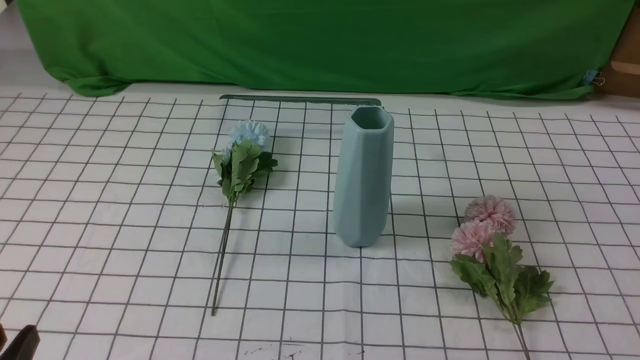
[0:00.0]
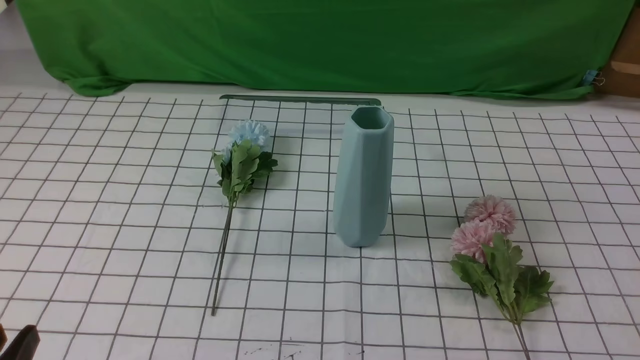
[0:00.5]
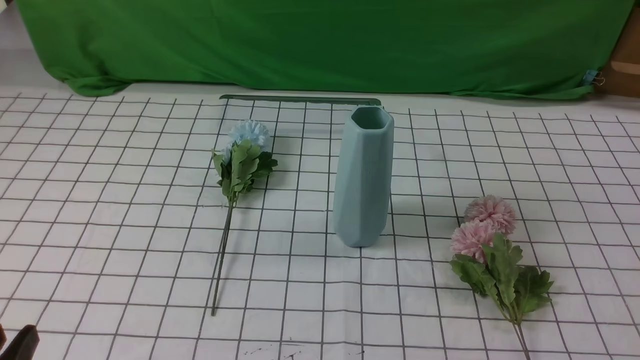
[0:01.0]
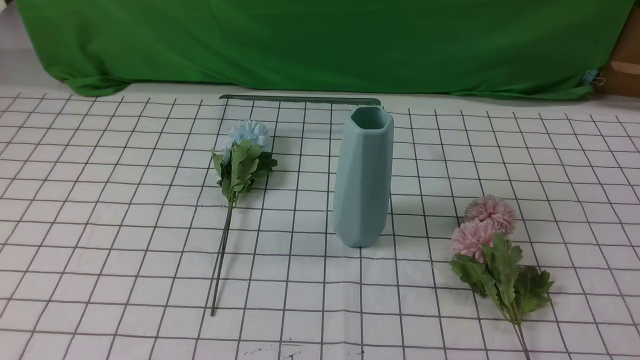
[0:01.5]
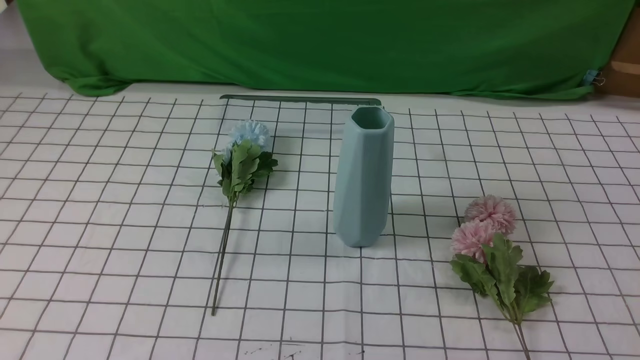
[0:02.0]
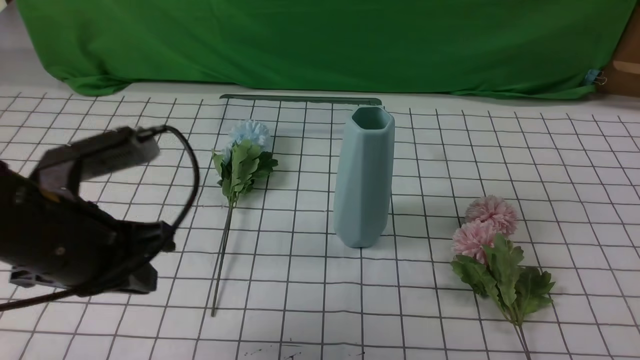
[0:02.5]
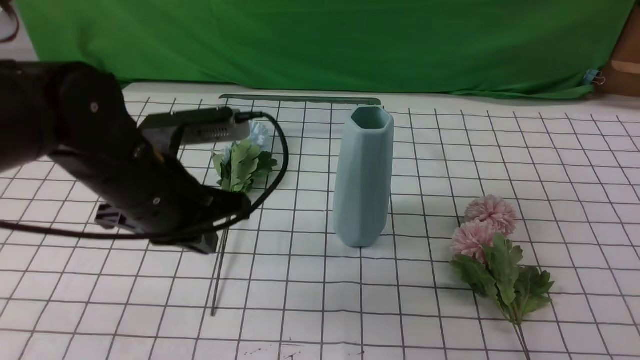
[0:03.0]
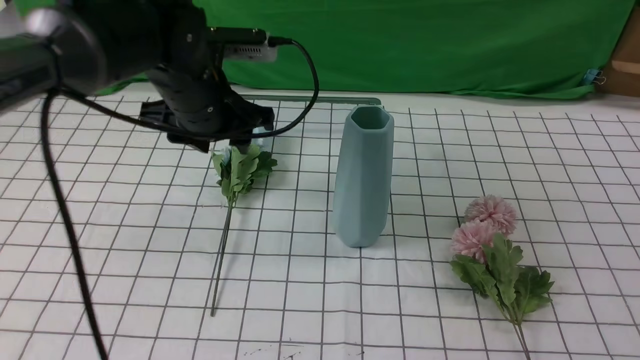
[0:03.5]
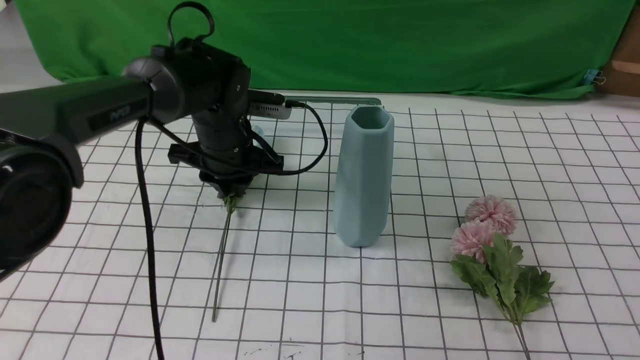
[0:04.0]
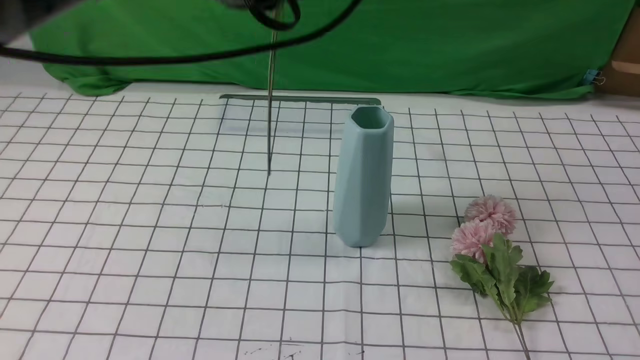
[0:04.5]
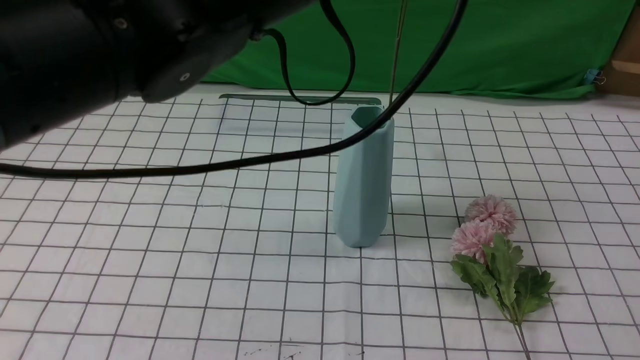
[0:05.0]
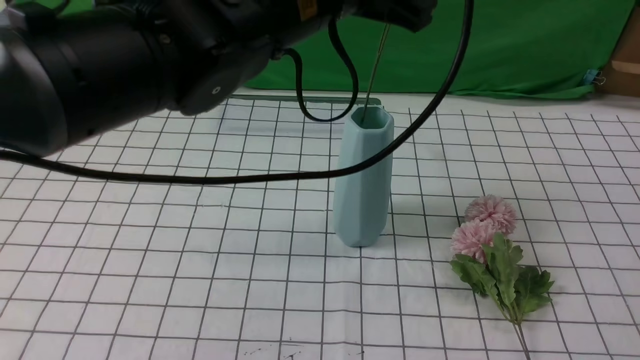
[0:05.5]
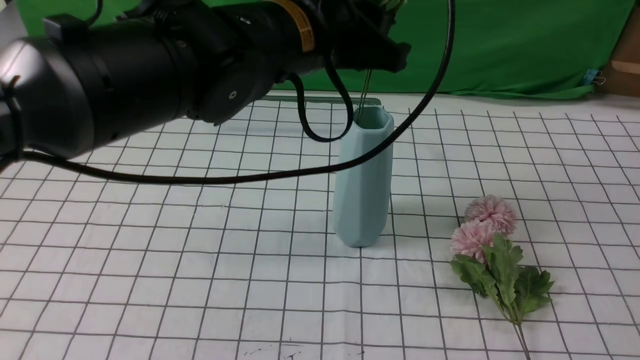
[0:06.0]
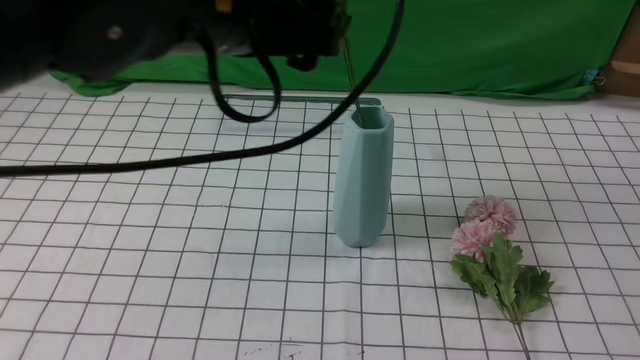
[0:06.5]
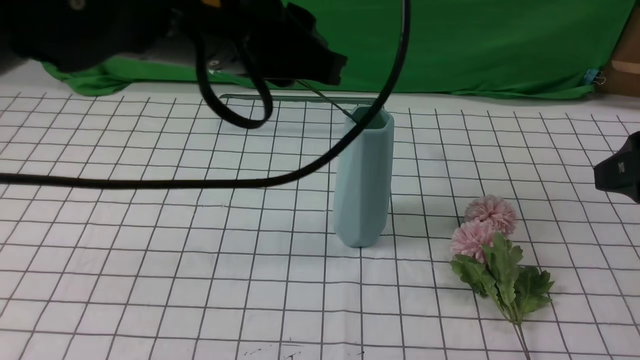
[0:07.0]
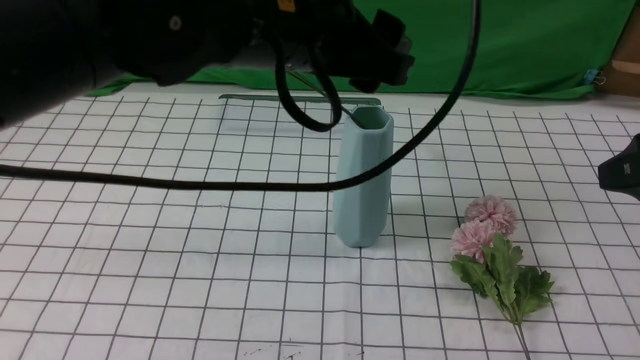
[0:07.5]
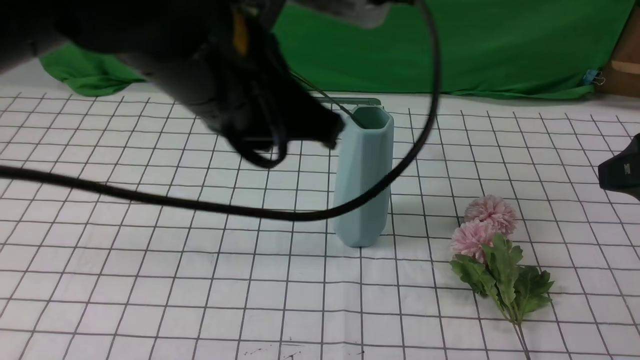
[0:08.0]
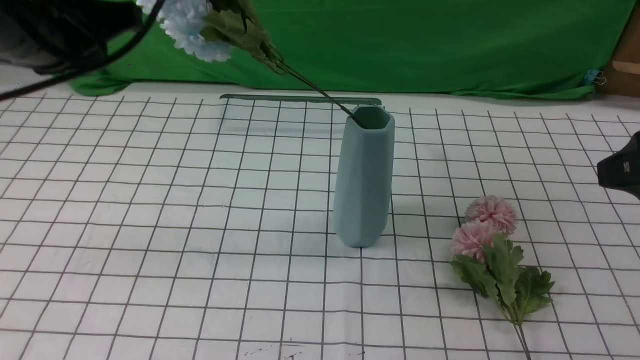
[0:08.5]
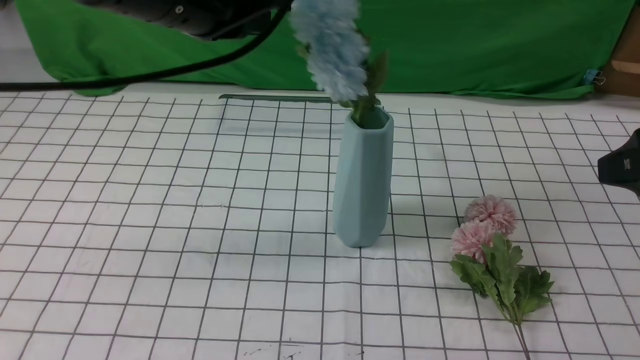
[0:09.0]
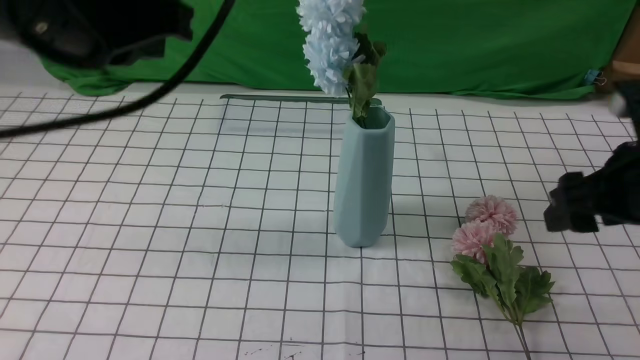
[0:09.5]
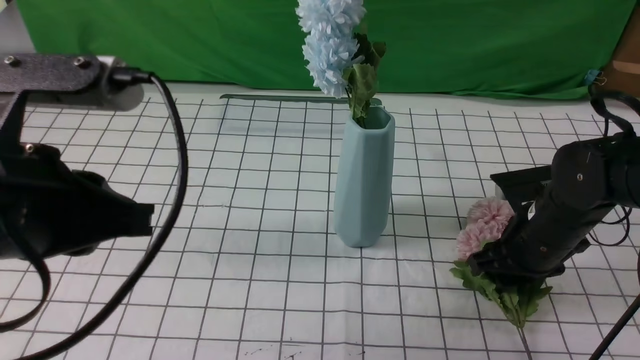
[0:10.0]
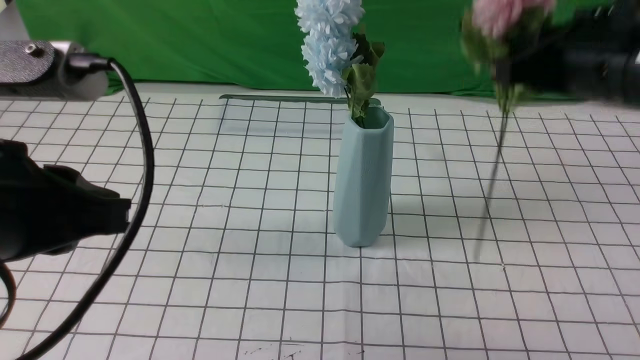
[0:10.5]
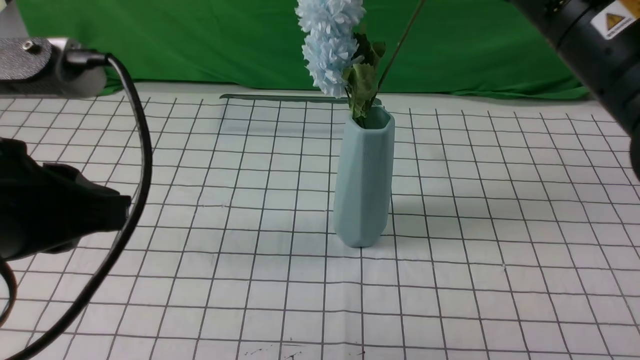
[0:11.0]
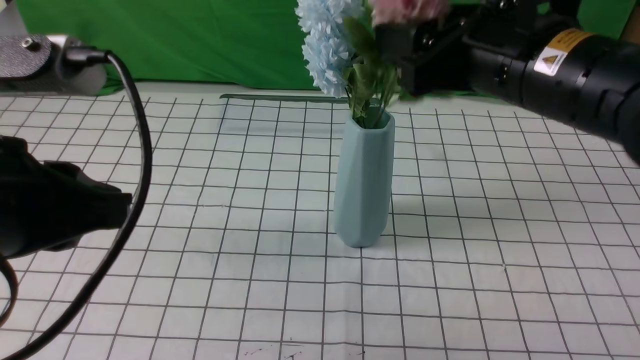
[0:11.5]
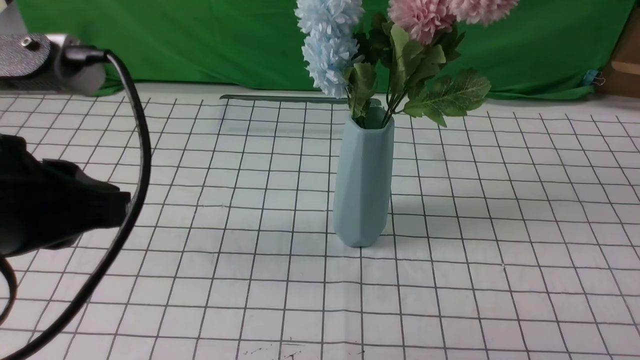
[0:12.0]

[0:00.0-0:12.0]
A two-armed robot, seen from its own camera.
Task of the whole recording: insert the flowers into the vase on the table with the white tablecloth.
Step, 0:00.0 to 0:04.0: use the left arm to grab a bunch of fresh flowers.
Step, 0:04.5 to 0:09.0: use the left arm to insert the flowers into the vase.
Step, 0:09.5 to 0:10.0: use the right arm to grab a bunch of fresh flowers.
Step, 0:10.5 to 0:11.5: use the right arm to insert the flowers into the vase.
0:02.0 to 0:04.0: The right gripper is displaced upward and forward by approximately 20 cm, while the left gripper heads forward, downward and to the right, covering about 40 cm, and opens up.
0:04.0 to 0:06.0: The left gripper shifts approximately 20 cm upward, backward and to the right, and closes, then opens again.
0:06.0 to 0:08.0: The right gripper ends up about 5 cm from where it was, and opens up; the left gripper goes some 10 cm backward and to the left, and closes.
0:08.0 to 0:10.0: The right gripper moves downward and forward, roughly 20 cm, and closes its fingers. The left gripper heads to the left and backward, covering about 15 cm.
0:10.0 to 0:12.0: The right gripper shifts approximately 35 cm upward and backward, and closes.

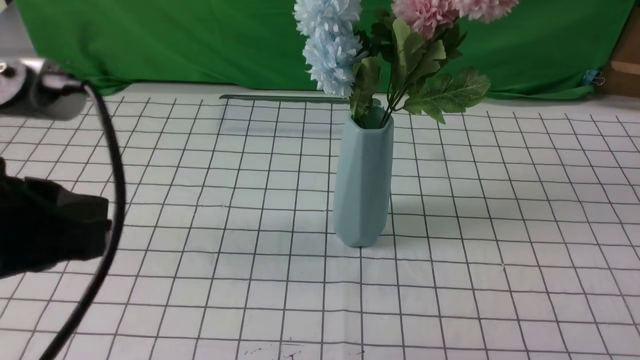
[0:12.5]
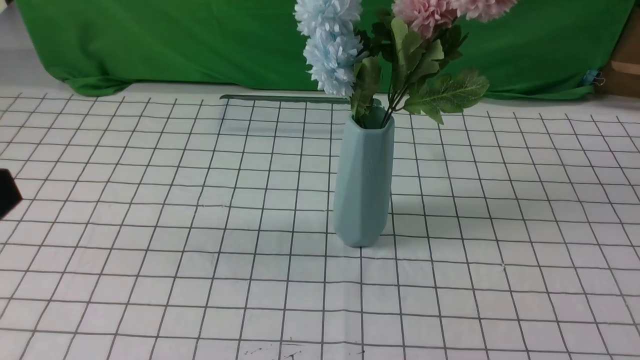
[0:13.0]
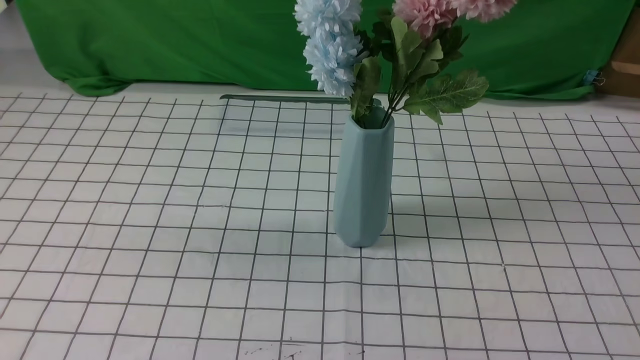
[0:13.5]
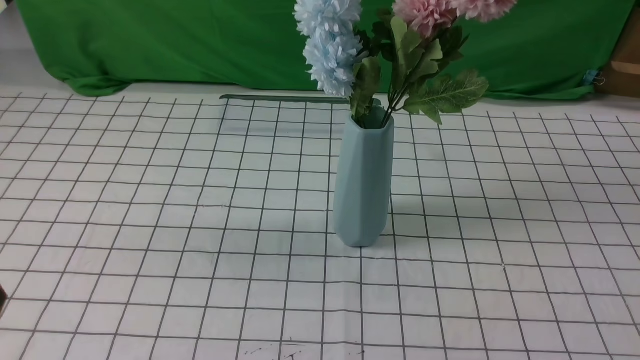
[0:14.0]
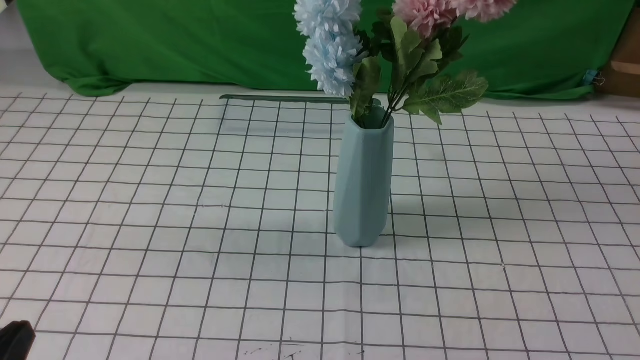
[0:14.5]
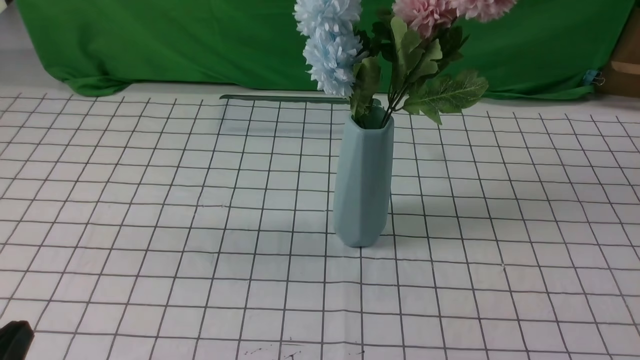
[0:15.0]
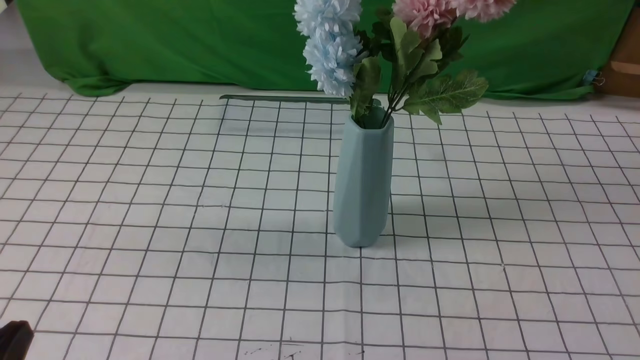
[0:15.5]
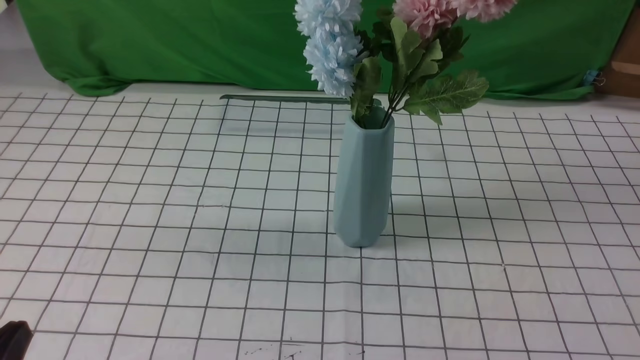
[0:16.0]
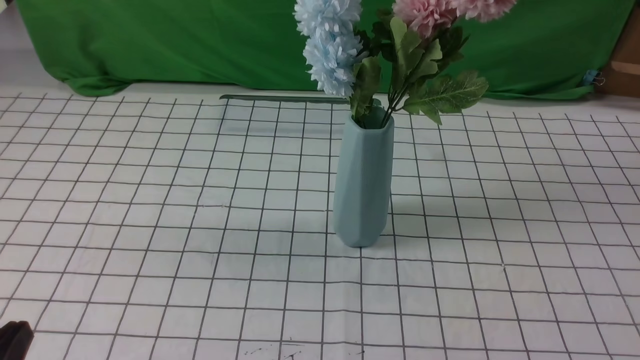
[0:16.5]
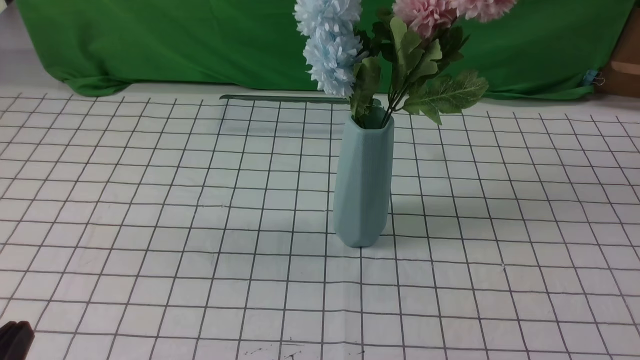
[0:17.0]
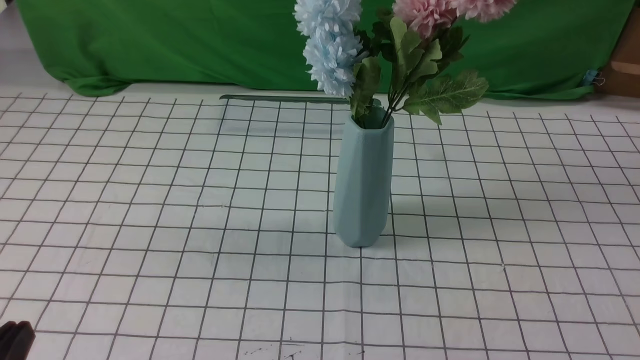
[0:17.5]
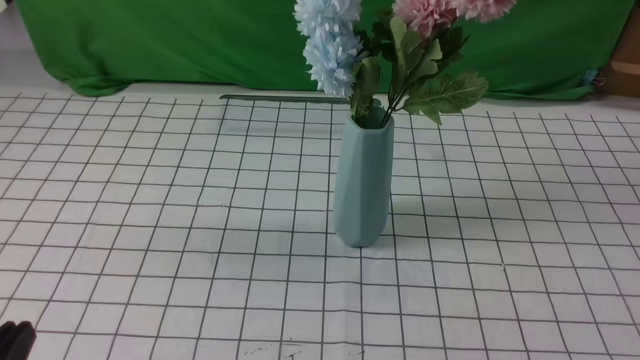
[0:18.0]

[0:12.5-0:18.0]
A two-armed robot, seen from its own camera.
Task of the whole recording: insert the flowers into the vase on the table with the white tablecloth.
0:12.5 to 0:14.5: The left gripper moves downward and backward, approximately 20 cm.
0:16.0 to 0:18.0: Both grippers stay put.
